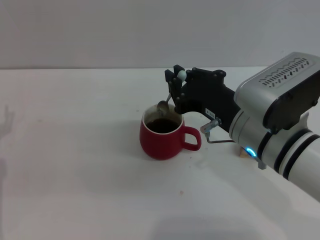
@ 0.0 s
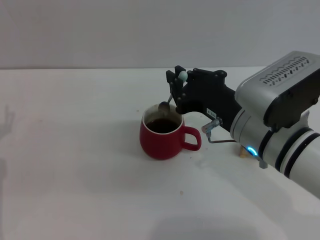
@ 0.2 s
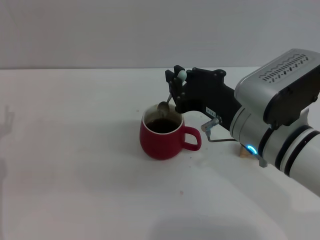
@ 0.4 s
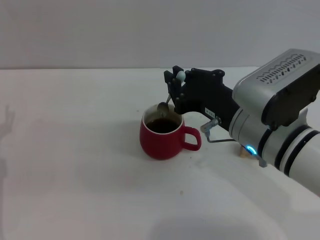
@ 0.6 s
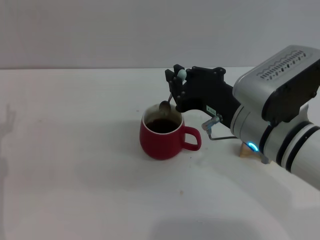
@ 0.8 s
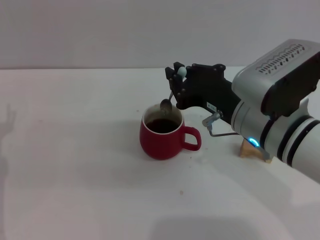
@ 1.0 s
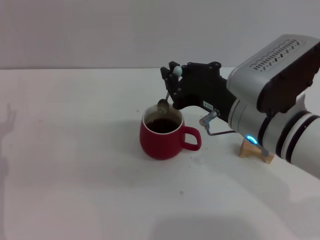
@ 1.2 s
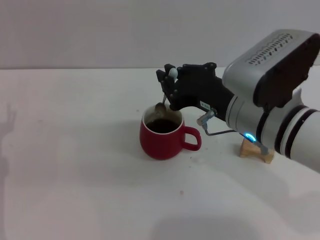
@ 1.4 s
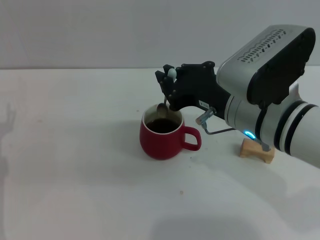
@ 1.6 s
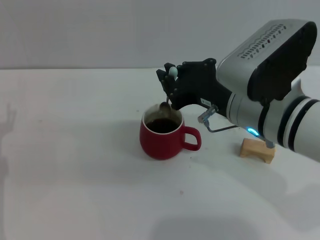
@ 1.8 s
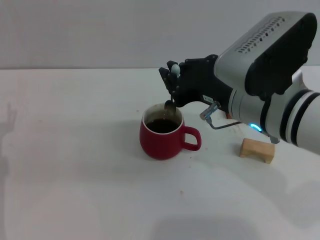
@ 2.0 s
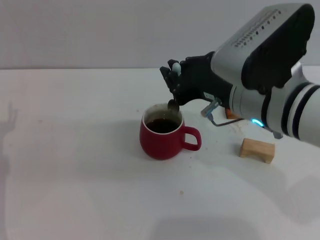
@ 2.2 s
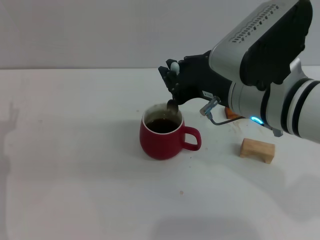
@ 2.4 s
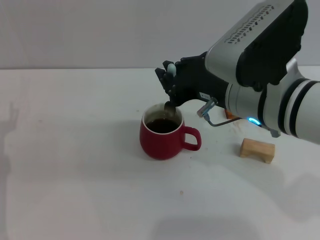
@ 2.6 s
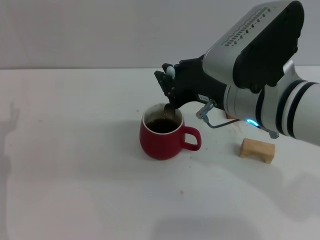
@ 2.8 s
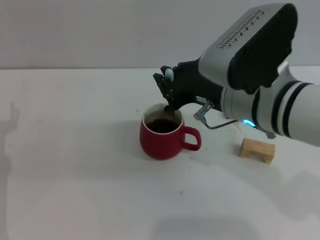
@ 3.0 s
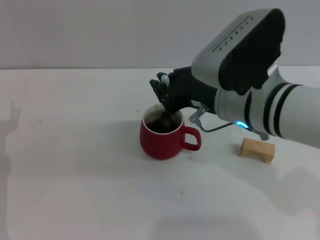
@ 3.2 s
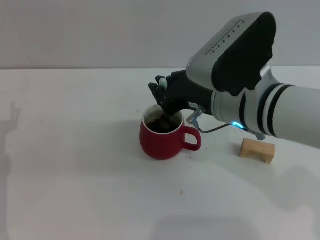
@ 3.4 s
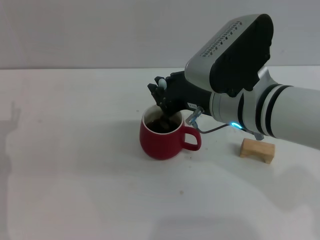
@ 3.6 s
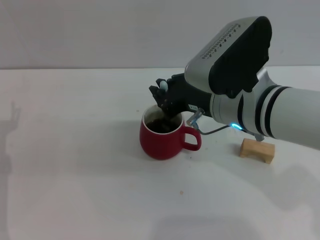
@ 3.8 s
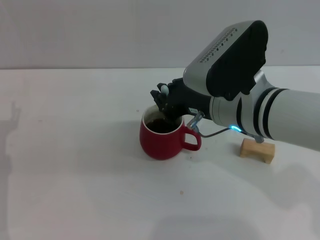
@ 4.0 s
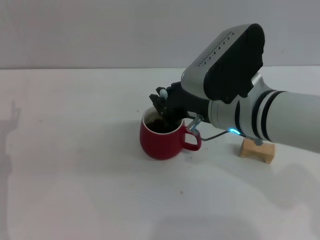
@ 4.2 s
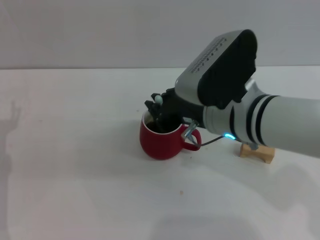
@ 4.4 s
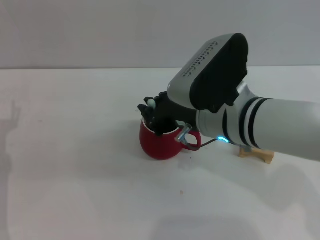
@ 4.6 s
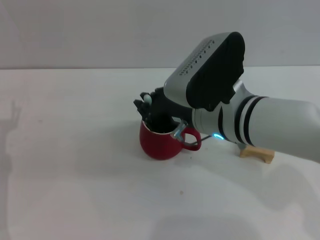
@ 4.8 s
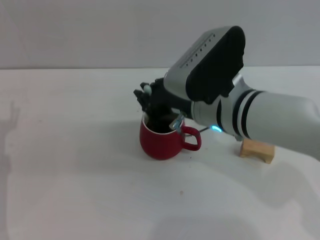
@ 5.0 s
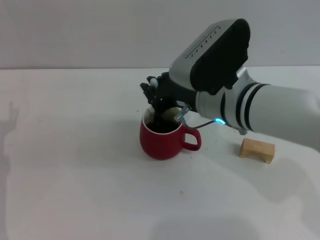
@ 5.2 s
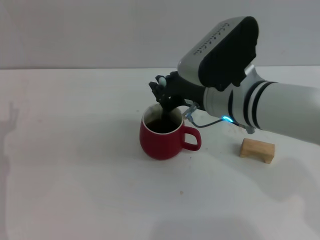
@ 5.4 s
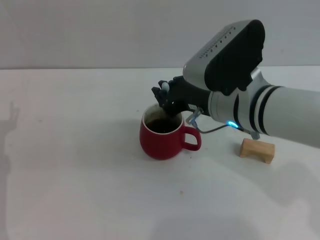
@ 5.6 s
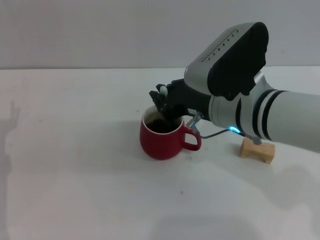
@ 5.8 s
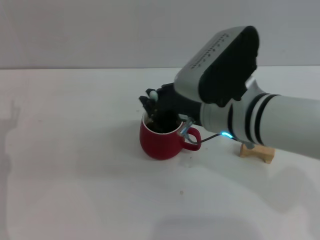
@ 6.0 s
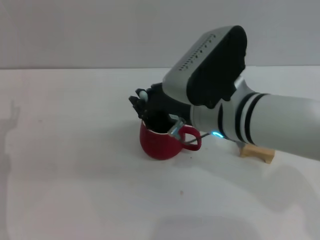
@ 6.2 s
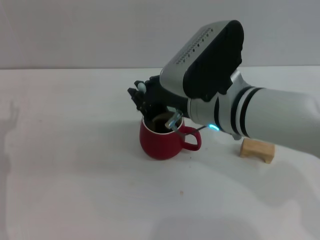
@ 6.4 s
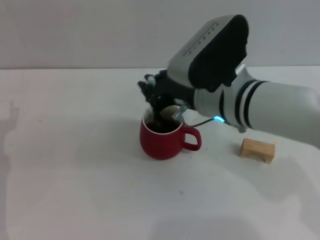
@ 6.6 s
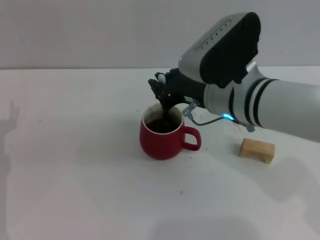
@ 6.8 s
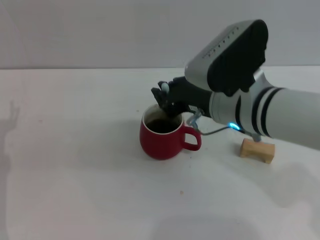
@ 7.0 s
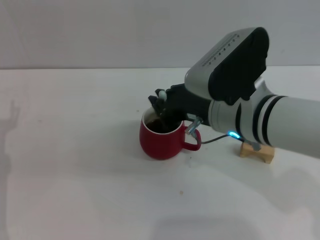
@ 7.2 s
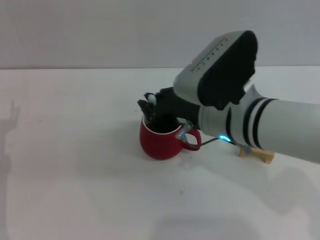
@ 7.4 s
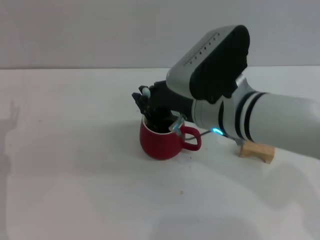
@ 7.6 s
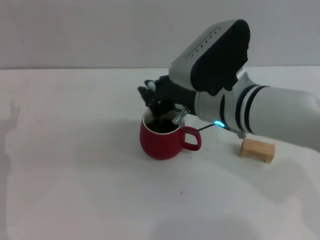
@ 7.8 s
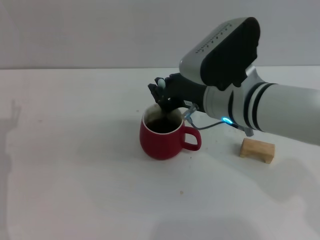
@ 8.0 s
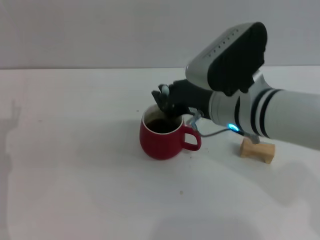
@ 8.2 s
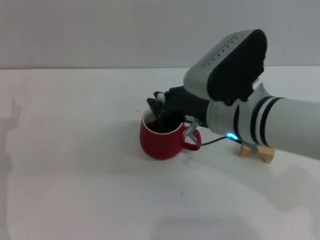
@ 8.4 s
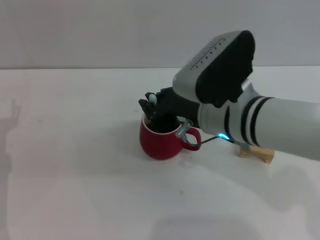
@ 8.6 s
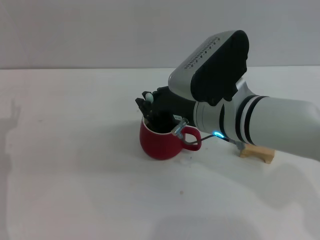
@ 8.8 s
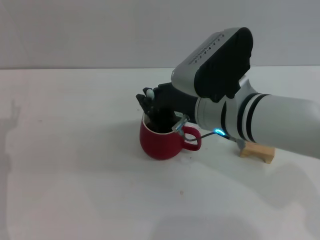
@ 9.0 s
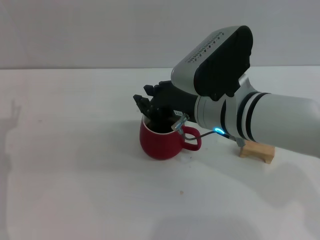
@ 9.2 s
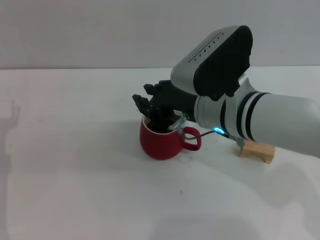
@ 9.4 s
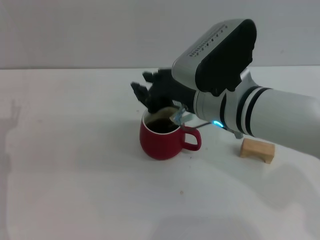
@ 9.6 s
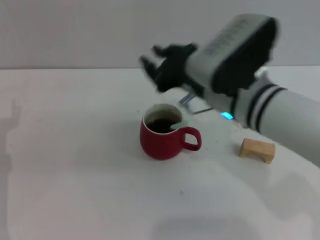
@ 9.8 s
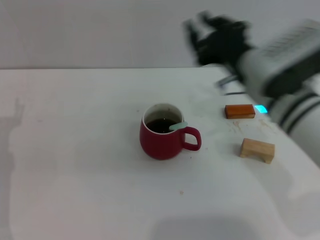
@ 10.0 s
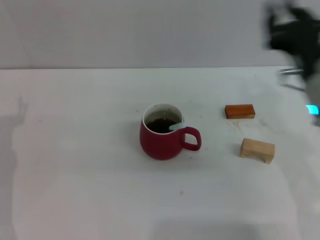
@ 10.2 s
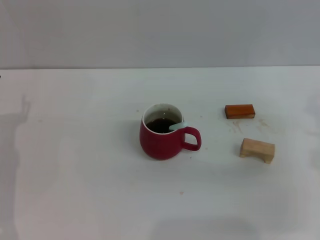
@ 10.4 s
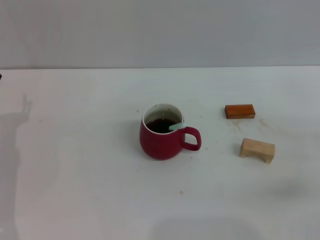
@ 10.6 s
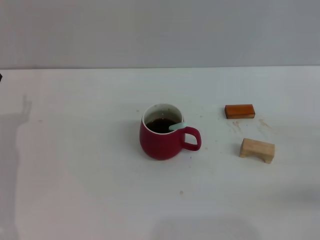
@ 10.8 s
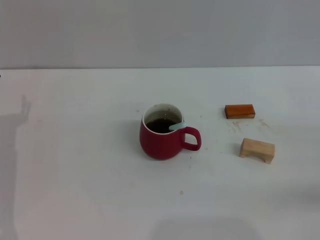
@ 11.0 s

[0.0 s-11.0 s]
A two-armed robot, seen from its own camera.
Task of the whole recording: Move the red cup to the center, lift the blue spoon, stir it three times in the cup, and put the spoon into the cup.
Step, 0.0 to 9.6 s: Stir the coffee in the cup with the right gripper.
0.0 to 1.6 s: The grippers move only a little.
1.6 to 9.4 s: The grippers make only small movements.
9.4 to 11.0 s: The right gripper is displaced to the right by approximately 30 cm.
